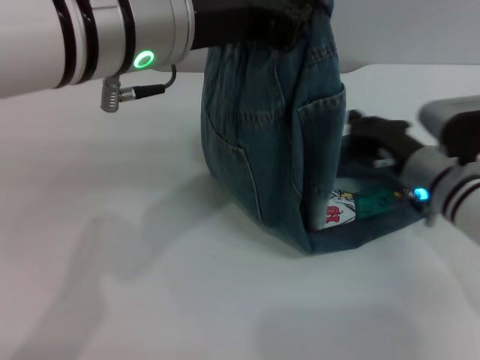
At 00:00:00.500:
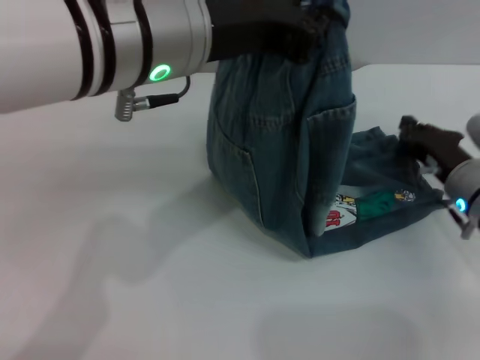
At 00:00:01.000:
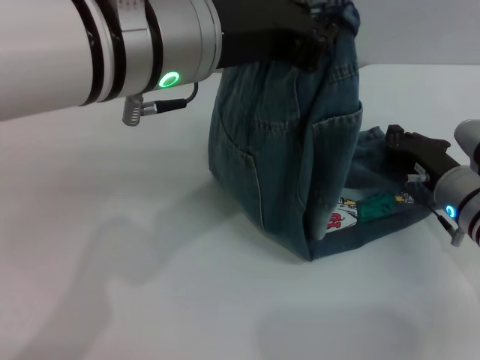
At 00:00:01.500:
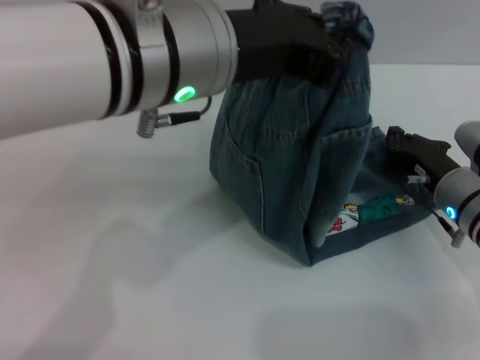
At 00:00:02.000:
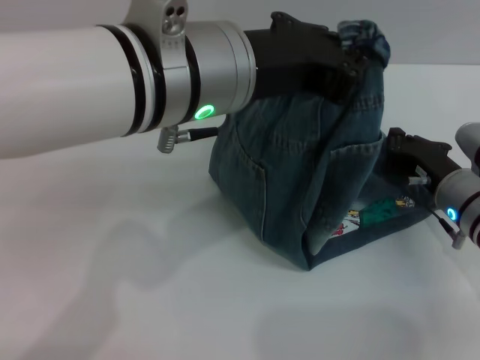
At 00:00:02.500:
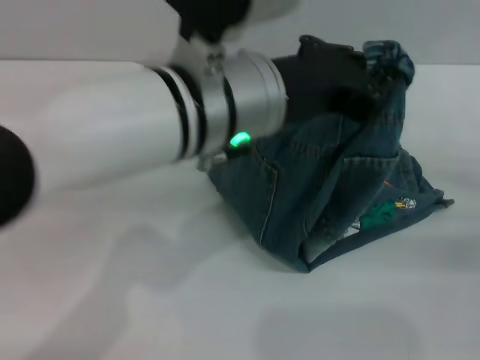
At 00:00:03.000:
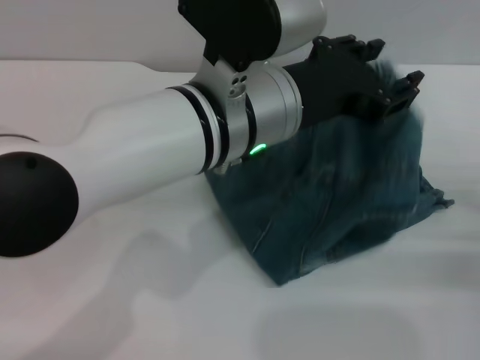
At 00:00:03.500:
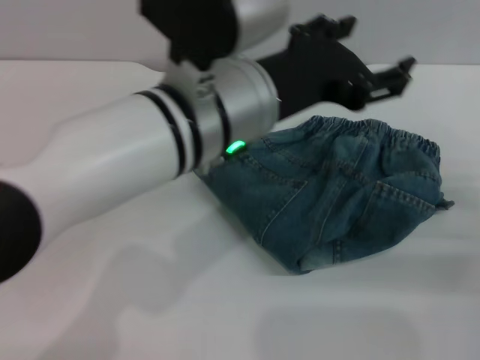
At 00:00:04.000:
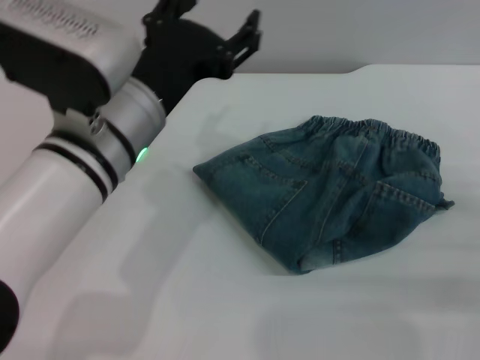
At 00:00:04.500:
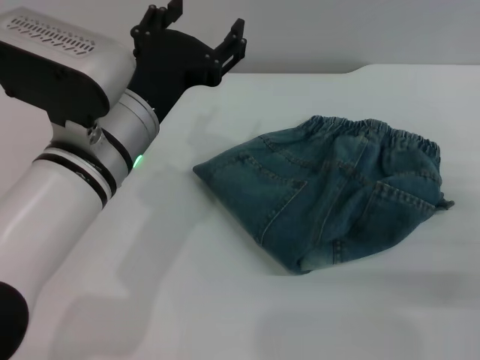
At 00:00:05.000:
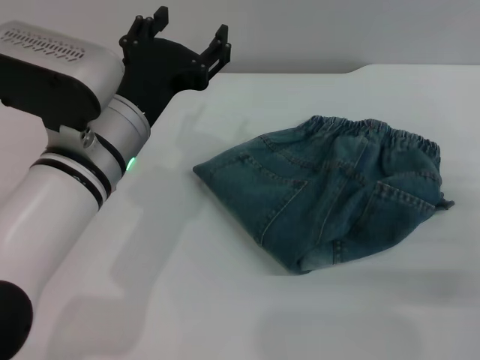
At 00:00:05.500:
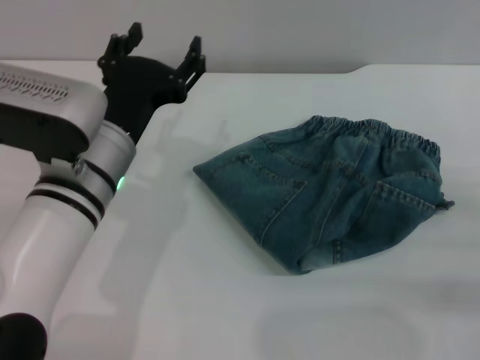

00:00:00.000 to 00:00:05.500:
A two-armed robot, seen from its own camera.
Step, 00:00:00.000 to 00:00:03.500: Fold the pants from left to right with the left gripper.
00:00:02.000 to 00:00:03.500: The right gripper heads backward and to the right, covering roughly 15 cm. Meanwhile the left gripper opens its fingers.
00:00:03.500 to 00:00:05.500: The left gripper is displaced downward and to the left by about 15 cm.
